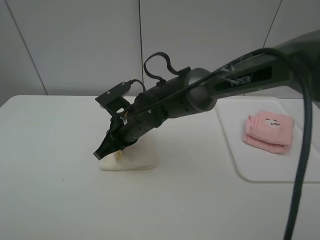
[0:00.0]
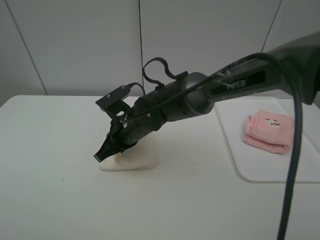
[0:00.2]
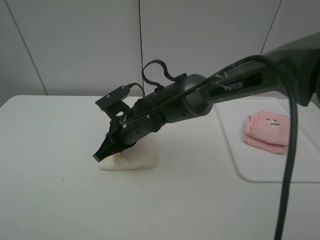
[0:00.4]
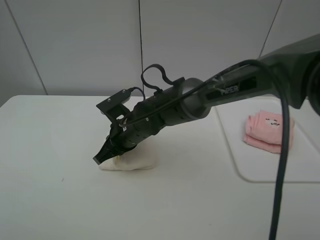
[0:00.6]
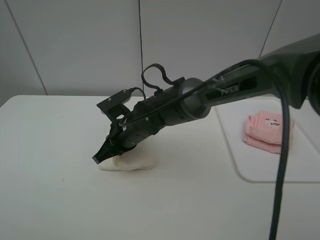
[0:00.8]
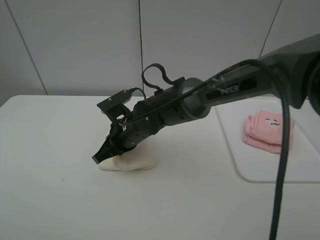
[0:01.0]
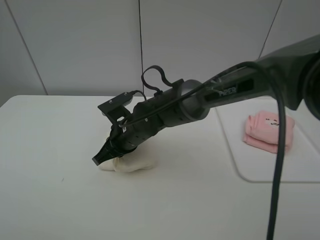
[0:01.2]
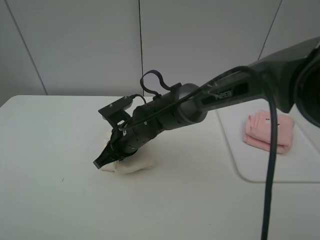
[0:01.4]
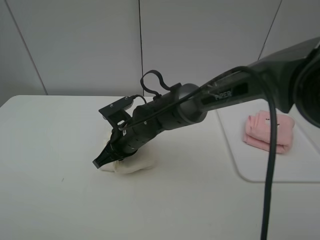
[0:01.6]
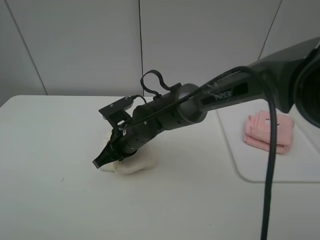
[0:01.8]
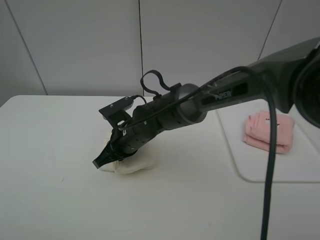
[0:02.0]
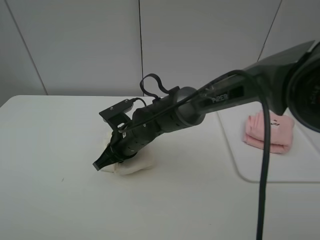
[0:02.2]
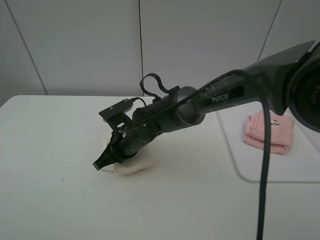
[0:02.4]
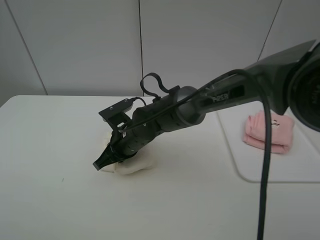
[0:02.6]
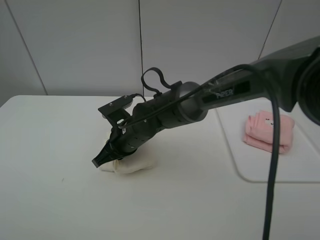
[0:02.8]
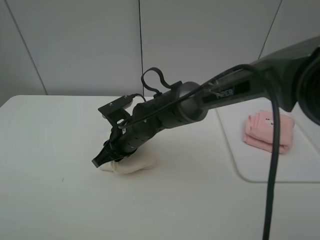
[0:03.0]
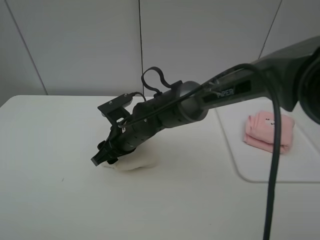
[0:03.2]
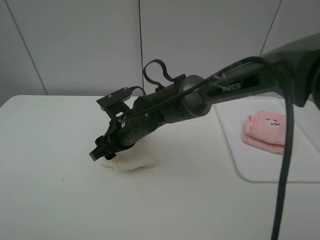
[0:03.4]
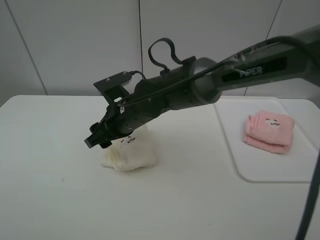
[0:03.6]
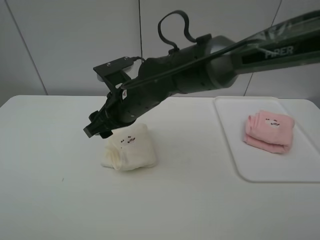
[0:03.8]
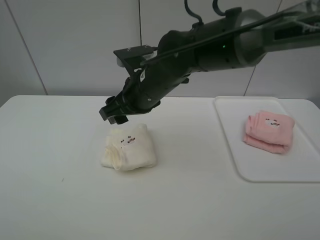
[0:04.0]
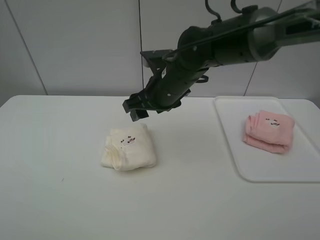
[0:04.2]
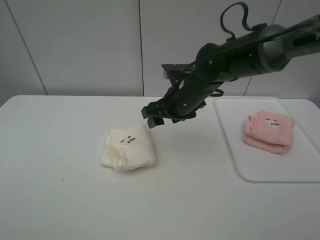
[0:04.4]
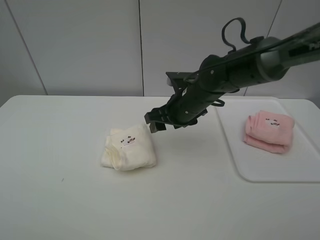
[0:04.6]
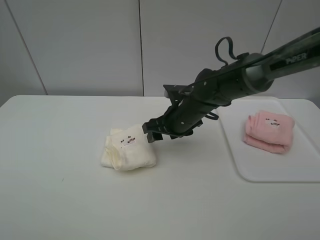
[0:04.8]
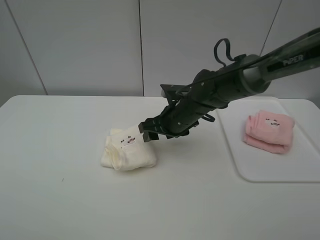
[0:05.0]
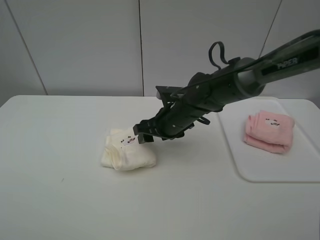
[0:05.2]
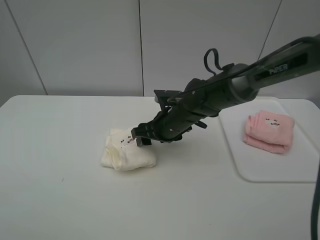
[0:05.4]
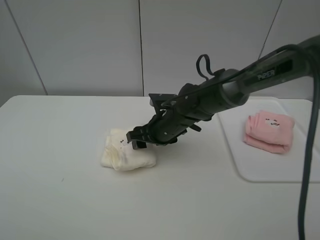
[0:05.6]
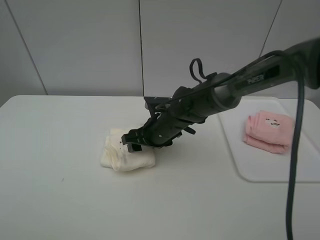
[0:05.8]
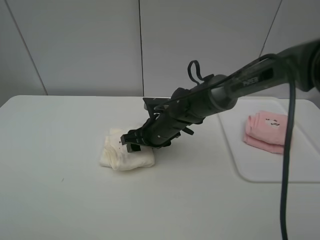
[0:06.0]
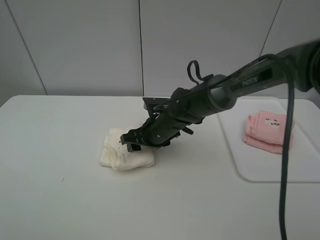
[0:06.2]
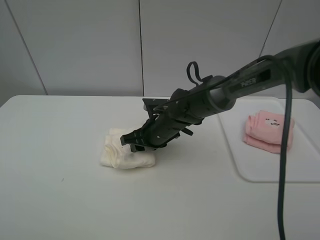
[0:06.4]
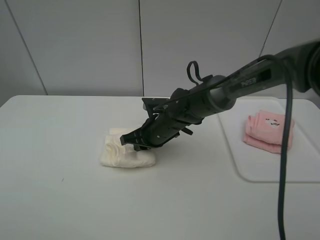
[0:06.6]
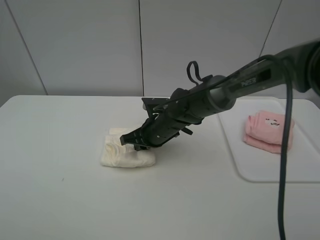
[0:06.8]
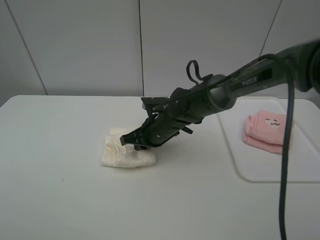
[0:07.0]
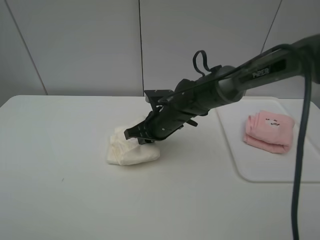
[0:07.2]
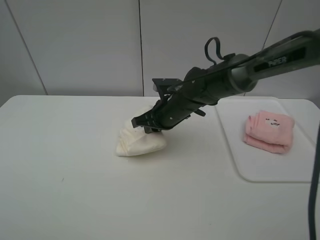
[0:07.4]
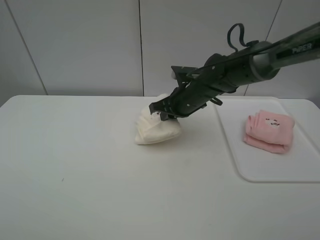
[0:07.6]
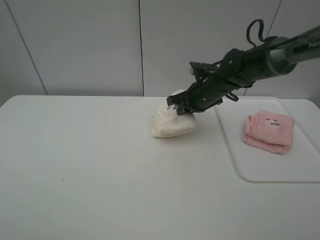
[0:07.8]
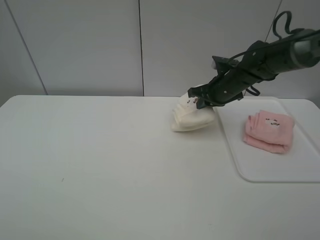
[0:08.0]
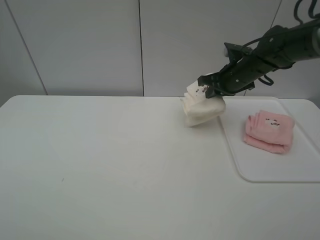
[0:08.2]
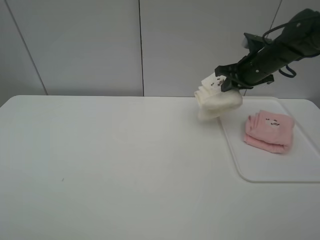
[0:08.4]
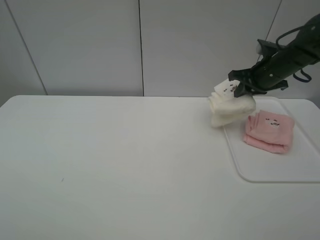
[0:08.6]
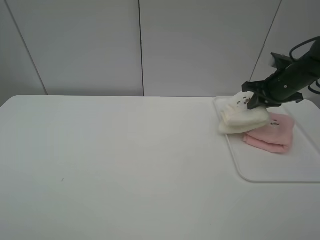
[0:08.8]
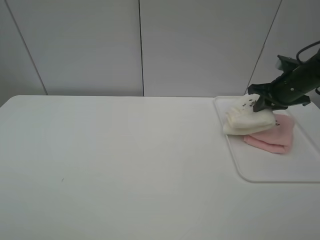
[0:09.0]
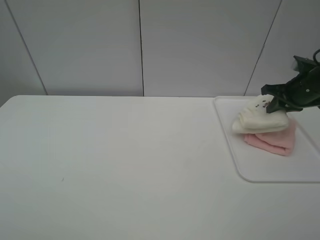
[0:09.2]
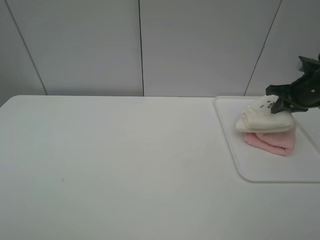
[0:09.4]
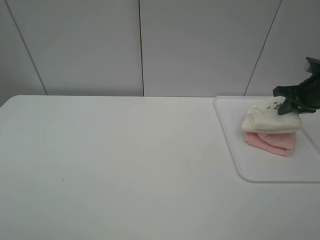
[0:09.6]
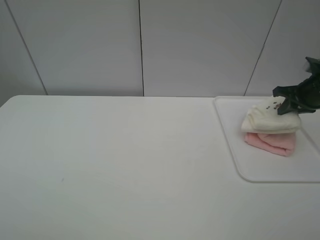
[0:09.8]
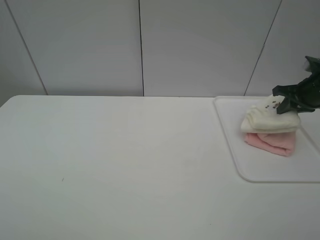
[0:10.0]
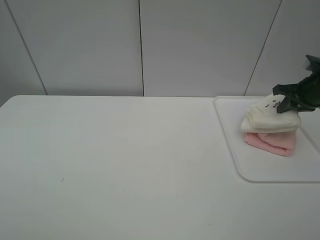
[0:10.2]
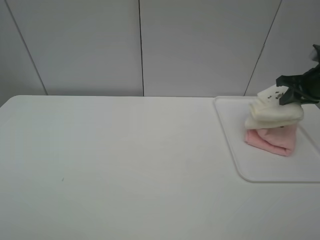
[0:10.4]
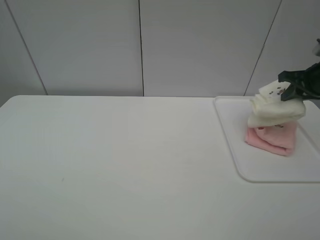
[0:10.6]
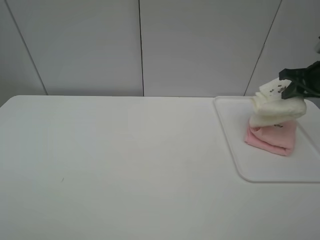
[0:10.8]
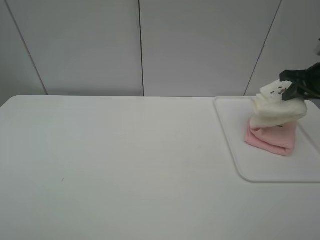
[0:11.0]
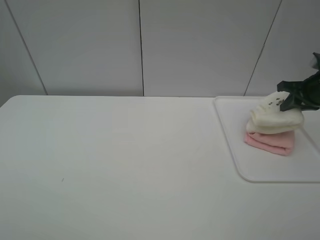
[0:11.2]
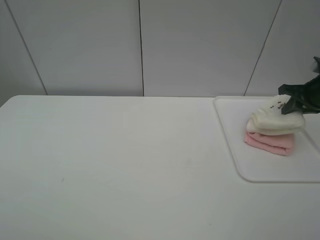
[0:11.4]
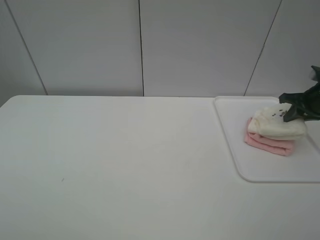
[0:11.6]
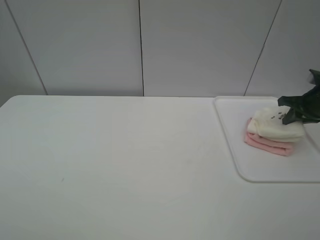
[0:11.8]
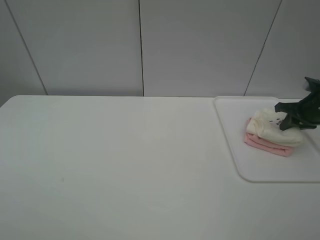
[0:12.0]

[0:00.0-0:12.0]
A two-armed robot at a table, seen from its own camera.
Task of the whole recording: fold one of the towels by two grippers and place it on the tray,then fold another towel by two grippers and place it on the folded towel.
Step, 0:00.0 to 0:06.6: Grasp the white towel with the right gripper.
0:00.0 to 0:01.6: The grippers make only small movements.
0:01.6 to 0:03.0: Both grippers stay put.
0:03.0 to 0:04.4: The right gripper heads to the right and upward, covering approximately 15 cm, and opens up.
0:04.4 to 0:06.0: The right gripper shifts about 10 cm downward.
0:06.0 to 0:07.6: The right gripper goes about 10 cm to the right and upward, and closes up.
0:07.6 to 0:09.0: The right gripper heads to the right, covering roughly 25 cm.
0:09.0 to 0:10.4: The right gripper ends up roughly 5 cm from where it was.
0:10.4 to 0:12.0: The right gripper travels downward by about 5 cm.

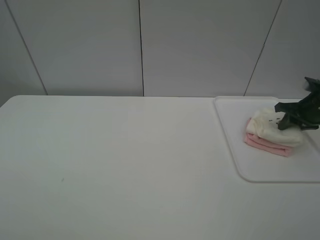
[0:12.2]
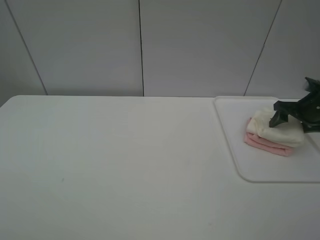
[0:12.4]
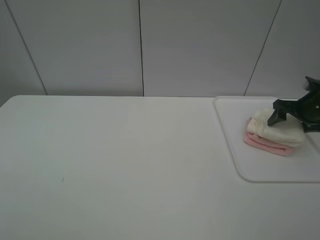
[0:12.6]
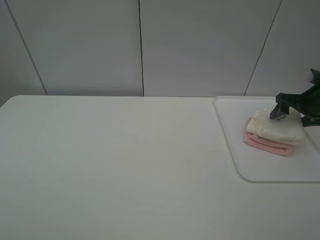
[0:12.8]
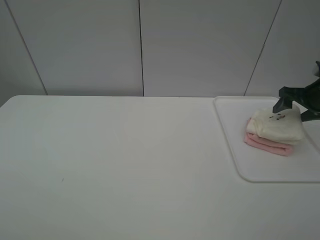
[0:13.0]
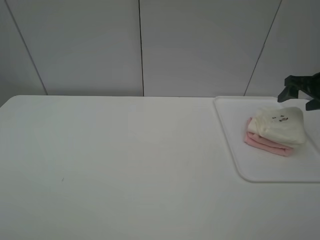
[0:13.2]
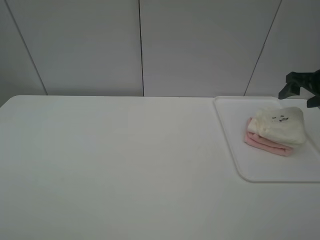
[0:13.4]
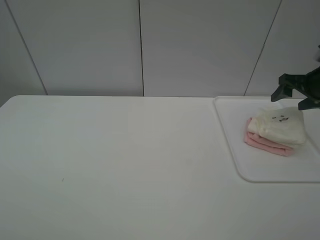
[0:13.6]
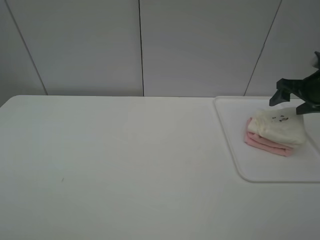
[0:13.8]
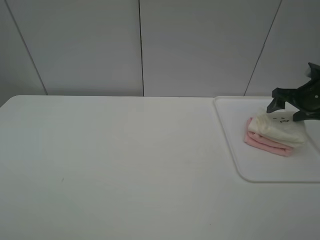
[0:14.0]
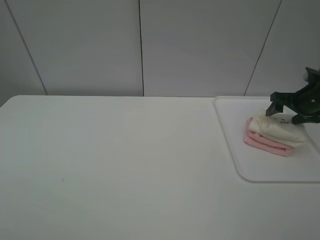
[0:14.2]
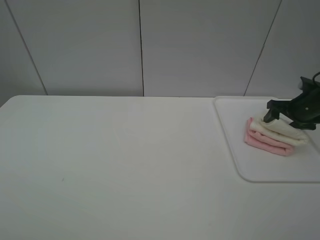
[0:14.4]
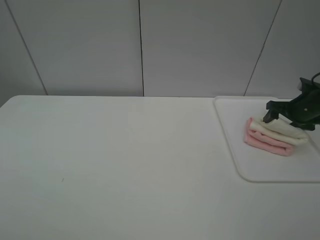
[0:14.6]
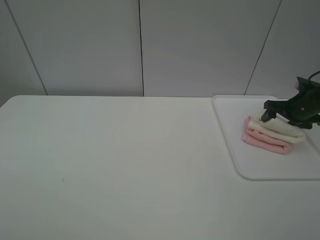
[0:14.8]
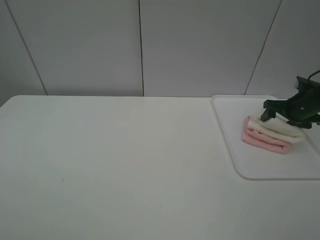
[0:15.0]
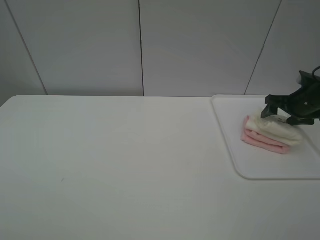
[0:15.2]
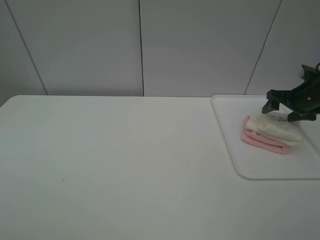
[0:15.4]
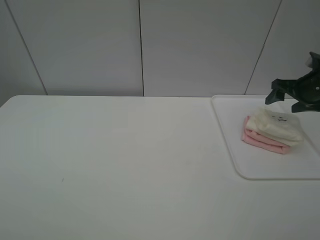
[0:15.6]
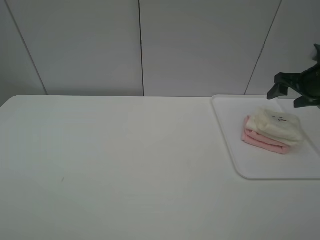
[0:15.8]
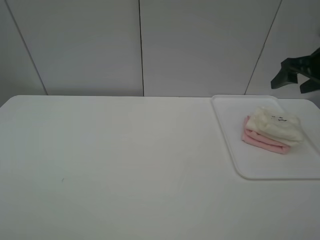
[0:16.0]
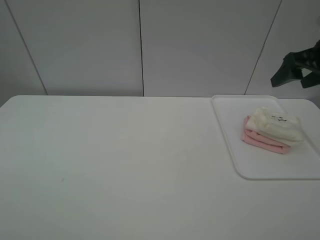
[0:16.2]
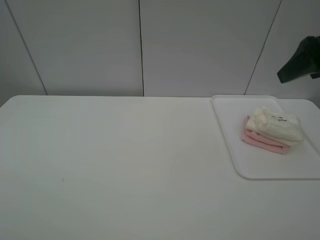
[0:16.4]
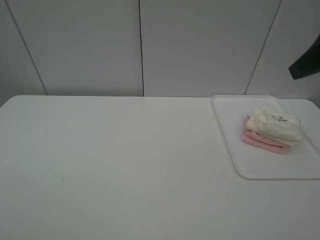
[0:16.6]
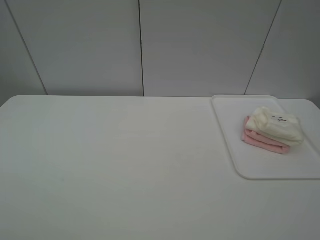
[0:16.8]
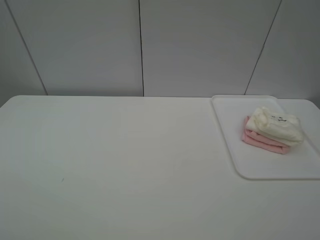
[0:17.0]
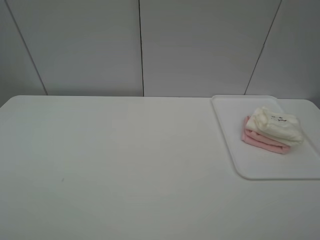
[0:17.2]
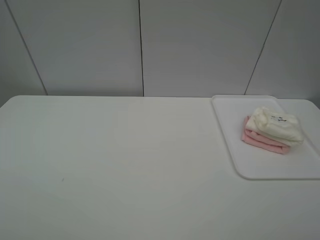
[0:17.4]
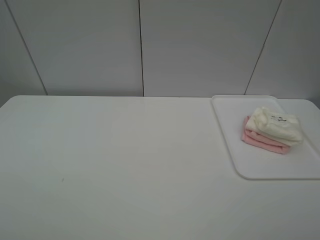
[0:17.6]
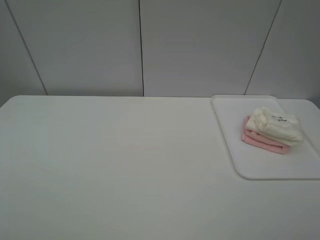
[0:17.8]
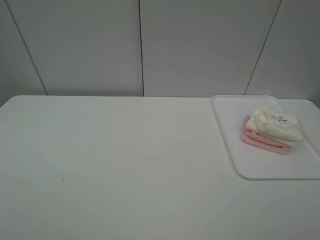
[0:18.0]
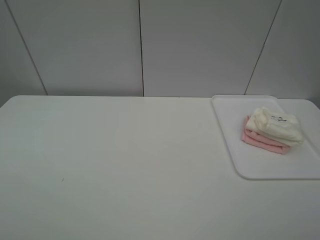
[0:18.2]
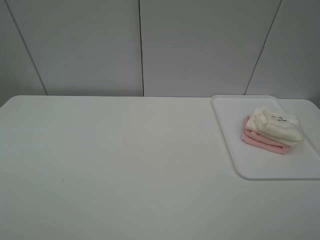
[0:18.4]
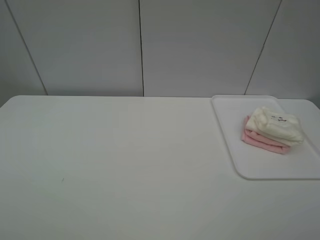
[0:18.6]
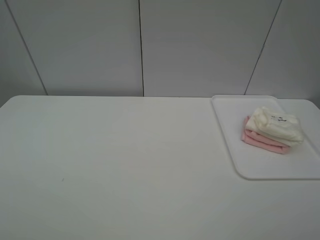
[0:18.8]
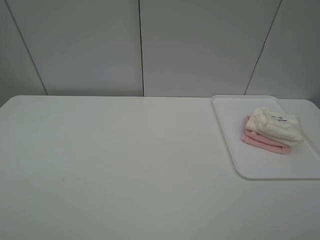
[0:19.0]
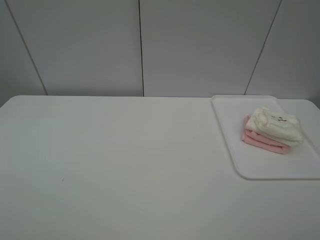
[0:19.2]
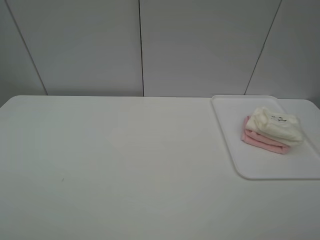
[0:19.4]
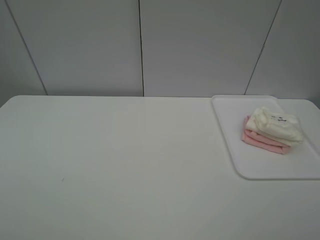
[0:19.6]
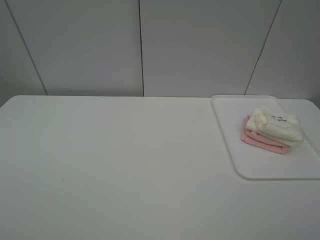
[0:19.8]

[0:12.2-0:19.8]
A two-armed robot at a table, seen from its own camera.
Task of the whole recording: fold one of the towels by two grippers and place it on the tray,then fold another towel by two grippers and place it on the folded towel.
0:12.2 to 0:13.8: The right gripper shifts by roughly 5 cm, and opens its fingers.
0:15.2 to 0:16.8: The right gripper is displaced backward and upward by some 35 cm.
0:18.2 to 0:19.8: Neither gripper changes place.
